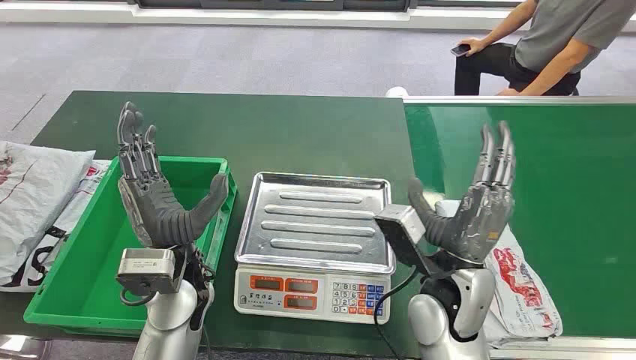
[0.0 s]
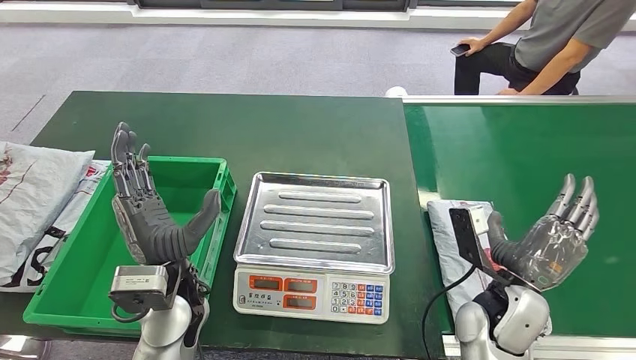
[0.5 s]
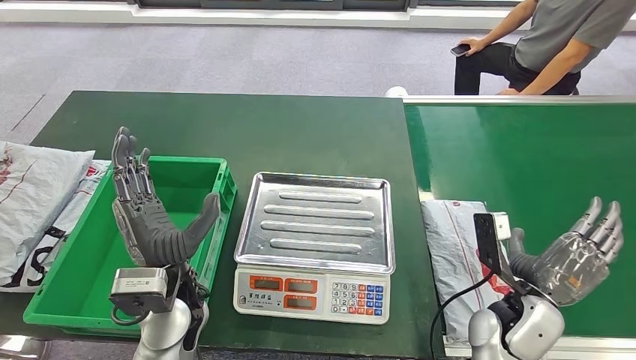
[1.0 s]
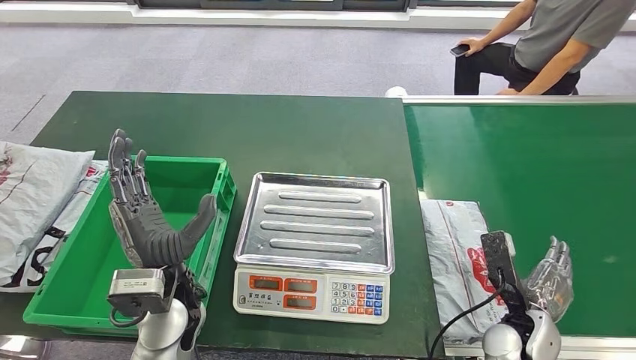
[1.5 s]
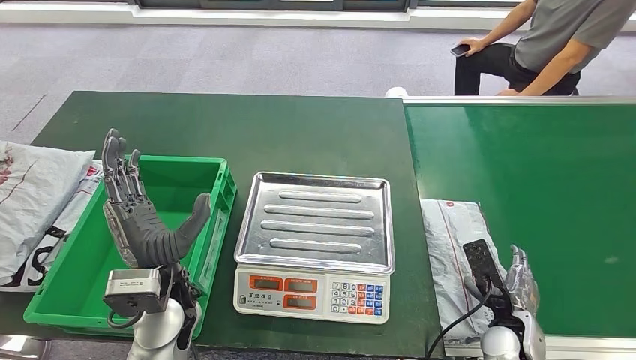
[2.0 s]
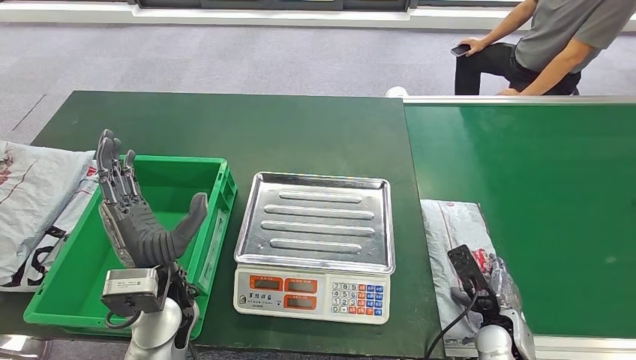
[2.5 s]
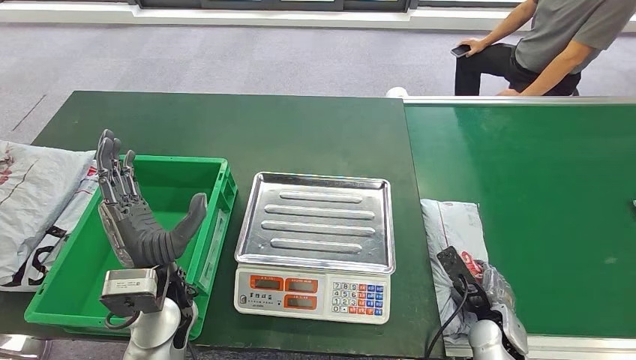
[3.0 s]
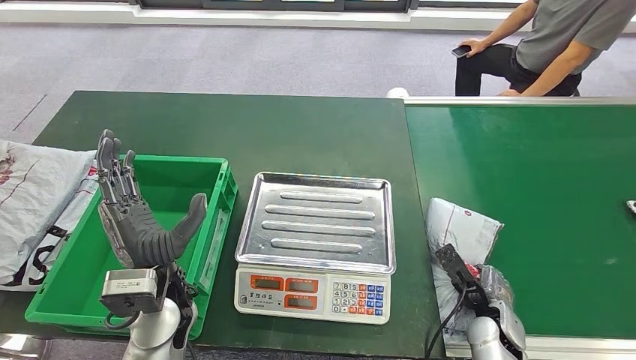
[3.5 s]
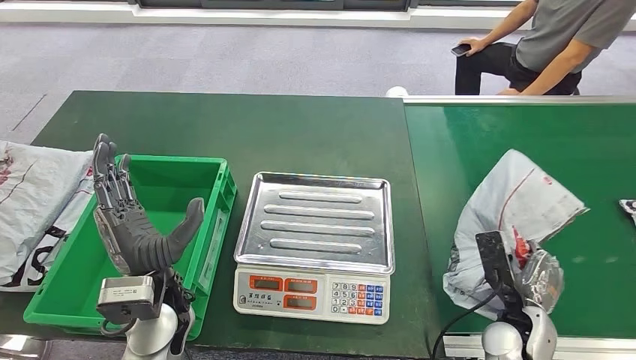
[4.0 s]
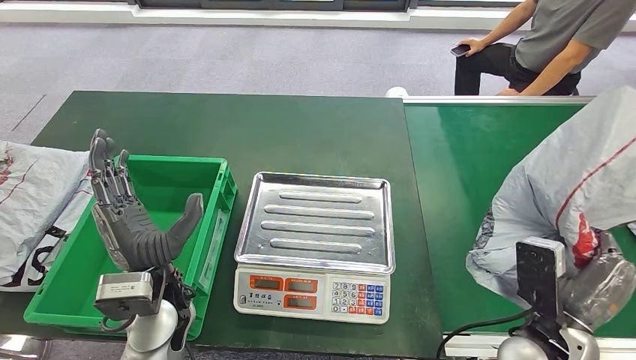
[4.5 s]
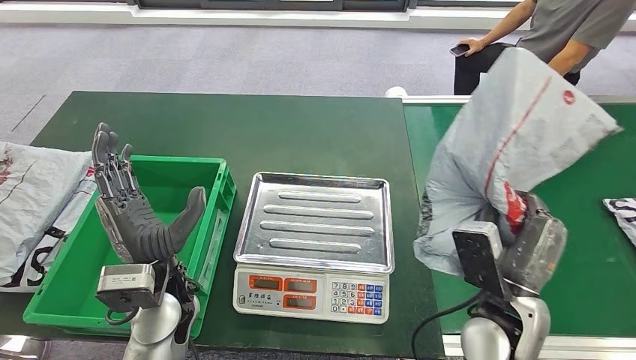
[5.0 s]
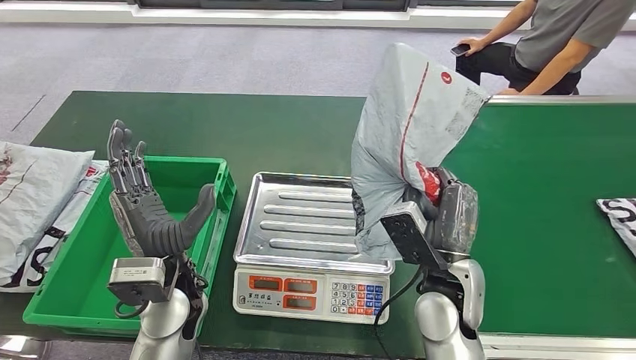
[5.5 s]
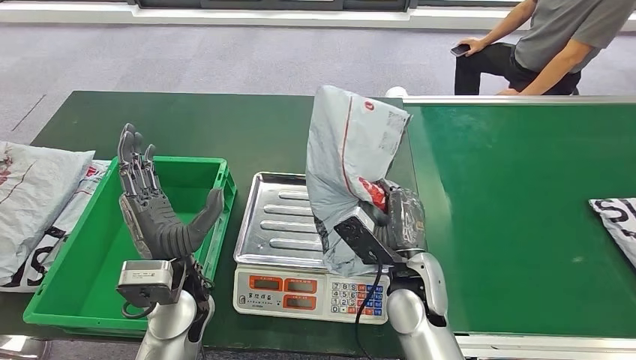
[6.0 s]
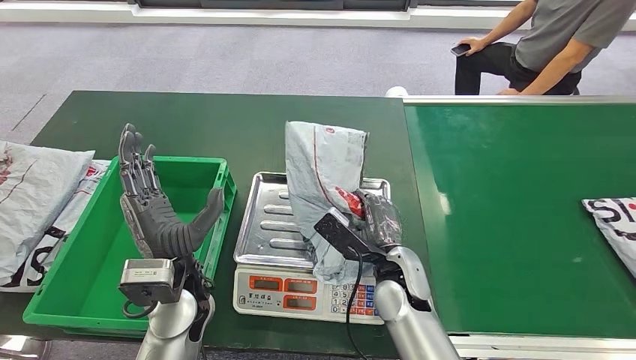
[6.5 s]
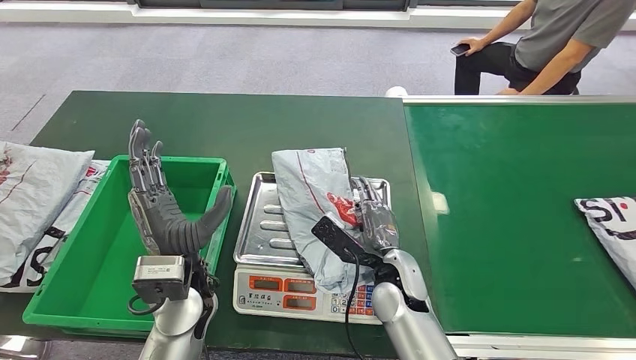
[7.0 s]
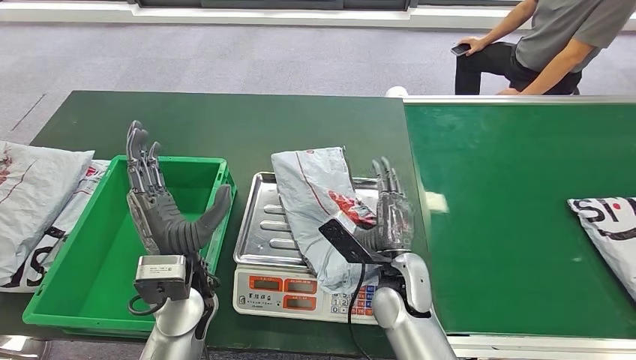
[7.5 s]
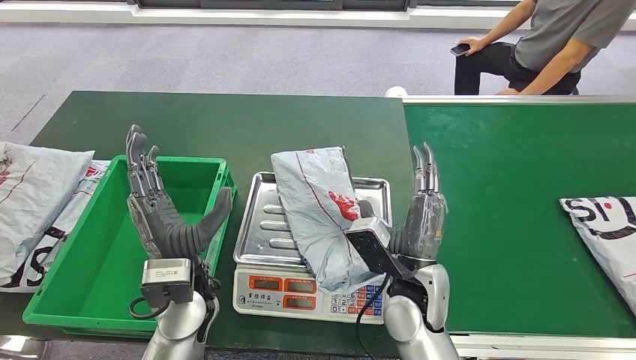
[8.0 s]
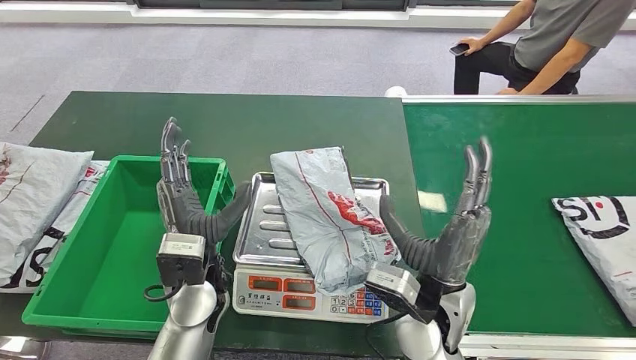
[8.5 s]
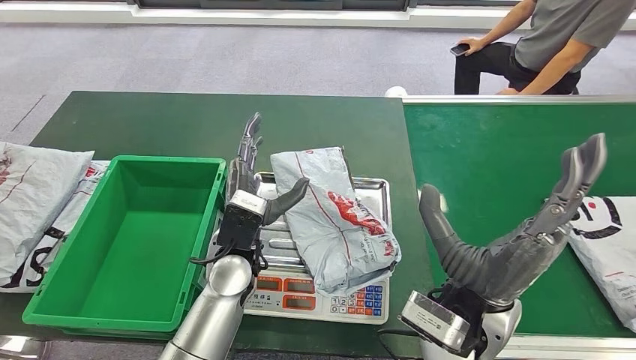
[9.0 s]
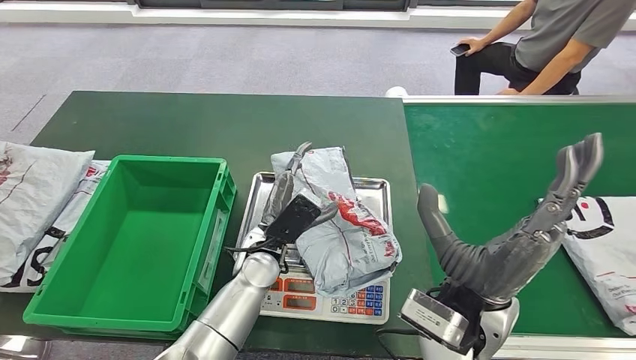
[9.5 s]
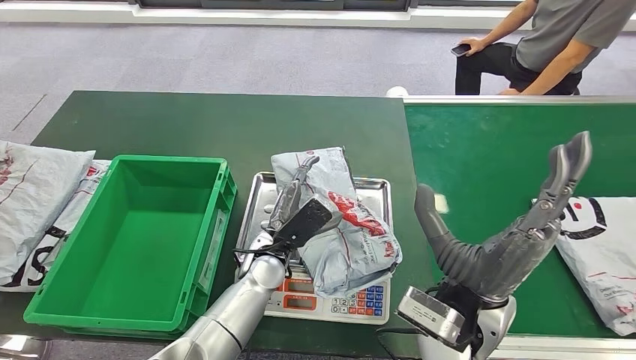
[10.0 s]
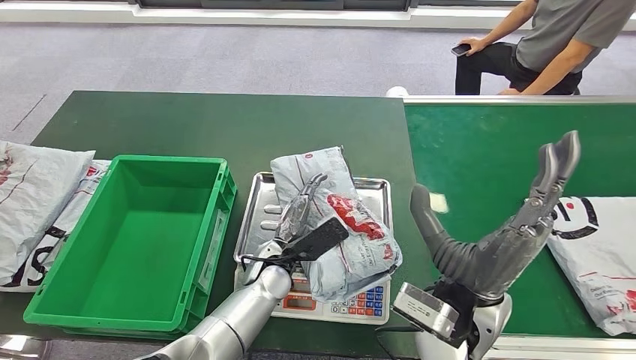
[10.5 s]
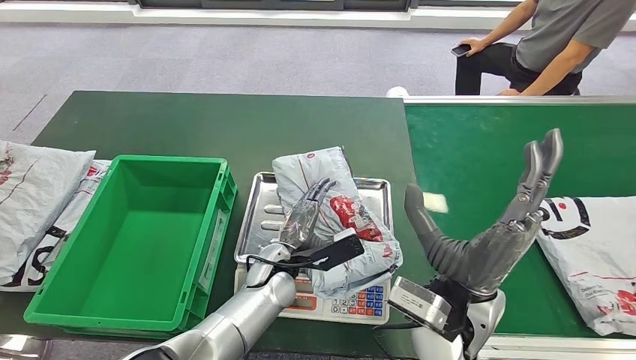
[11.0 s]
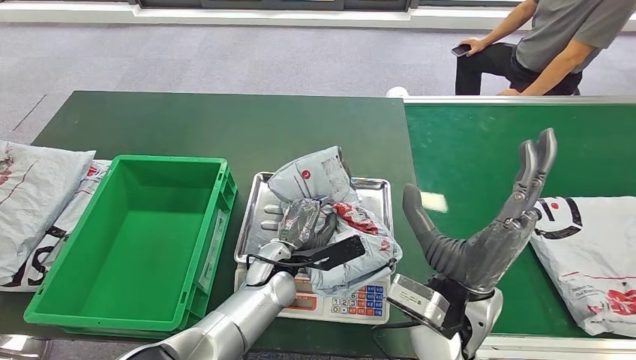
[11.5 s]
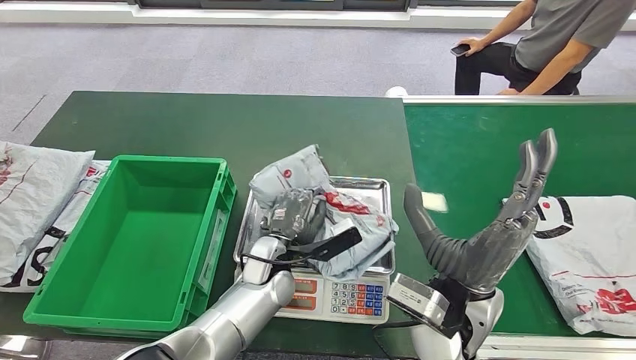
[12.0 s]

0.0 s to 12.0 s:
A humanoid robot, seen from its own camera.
Step, 0.0 to 4.5 s: Take the parcel off the conveyor belt.
Step, 5.0 to 8.0 s: Place the parcel onto the inbound machine.
2.0 to 4.0 s: The hands stay close to where they were, moving slightly.
6.0 to 8.0 s: The hands make only small movements.

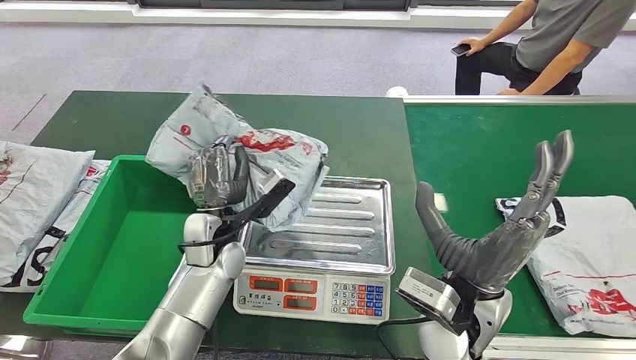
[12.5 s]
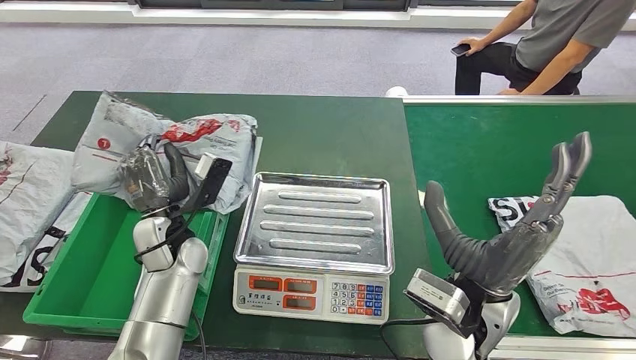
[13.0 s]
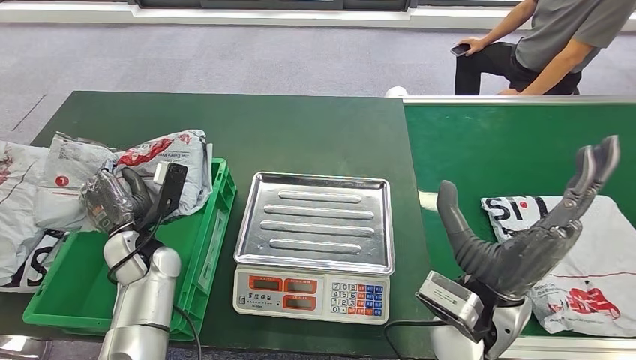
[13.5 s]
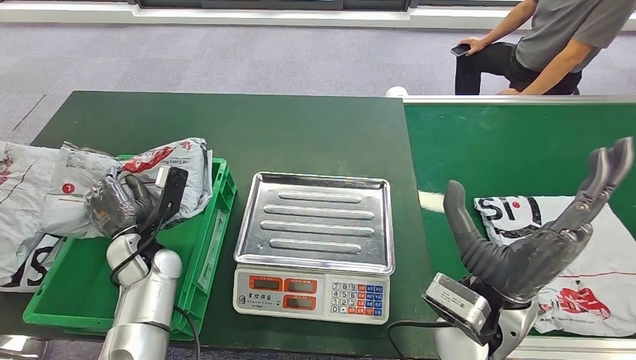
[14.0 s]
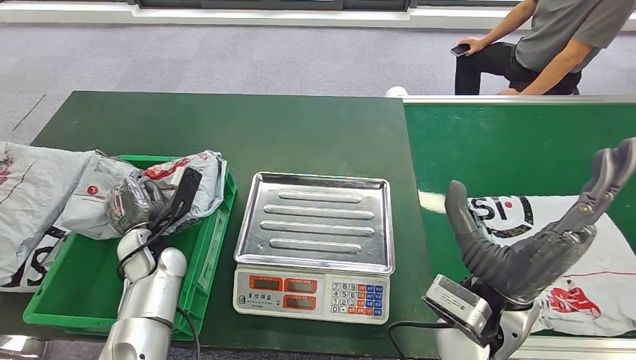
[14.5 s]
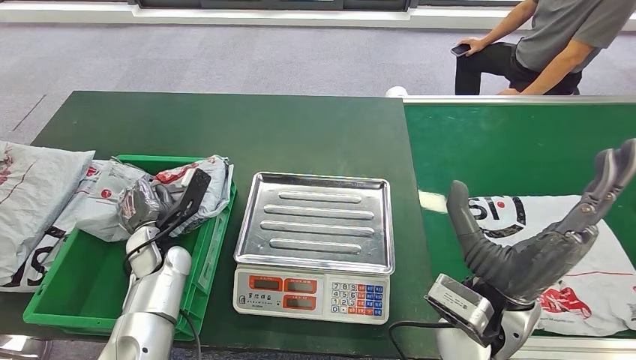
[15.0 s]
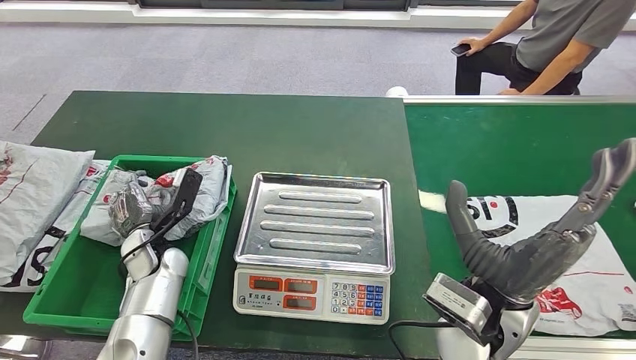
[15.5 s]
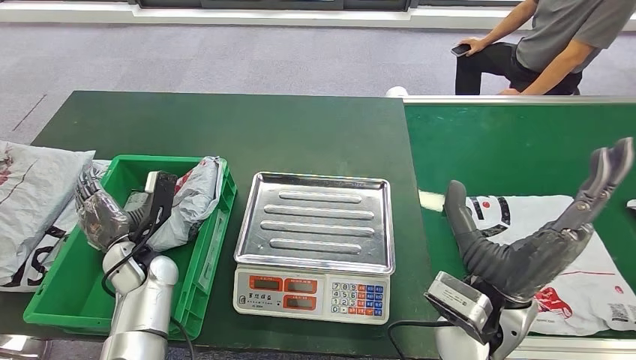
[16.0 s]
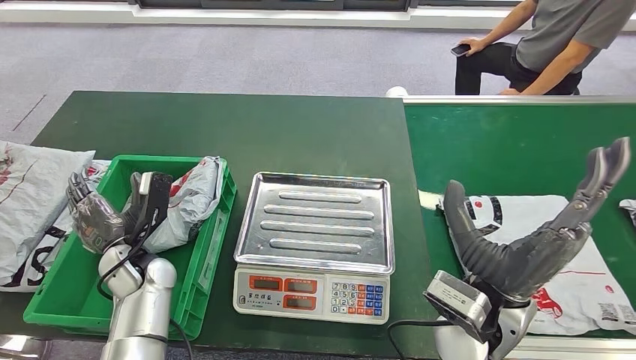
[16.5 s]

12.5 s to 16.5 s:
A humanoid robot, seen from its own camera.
Step, 13.0 to 16.5 s: Put the parcel inside the courier box.
14.5 to 16.5 s: The hands stay close to where they were, moving slightly.
